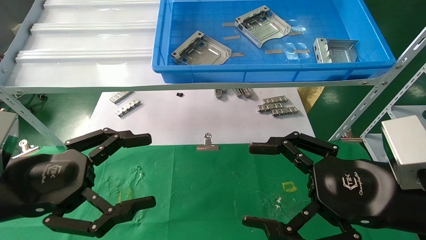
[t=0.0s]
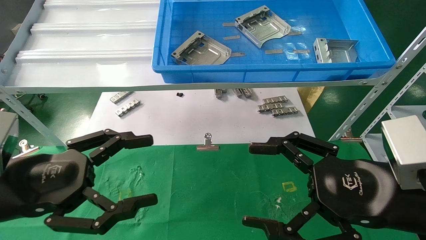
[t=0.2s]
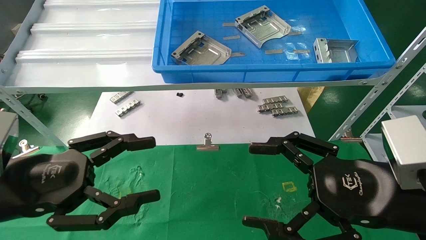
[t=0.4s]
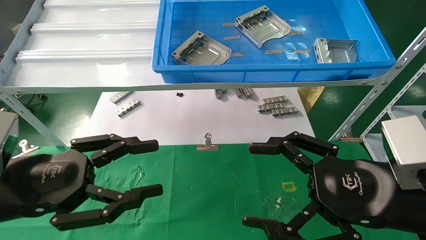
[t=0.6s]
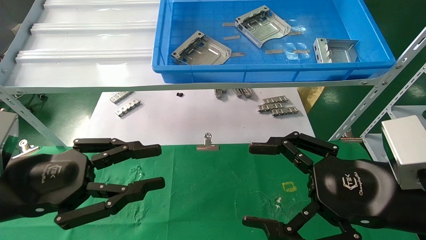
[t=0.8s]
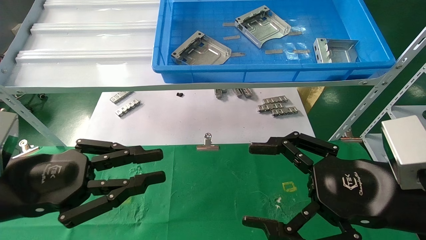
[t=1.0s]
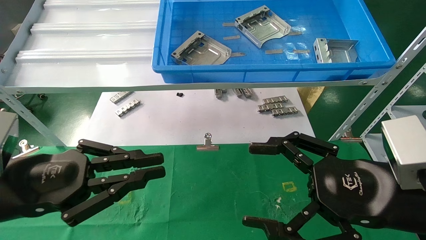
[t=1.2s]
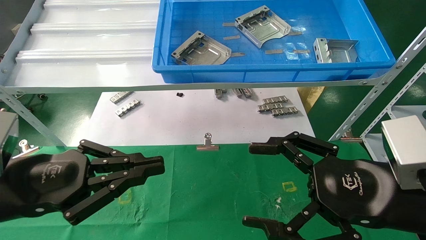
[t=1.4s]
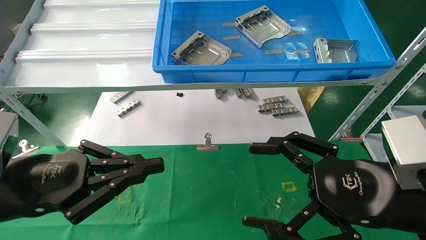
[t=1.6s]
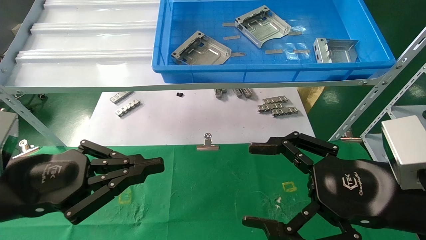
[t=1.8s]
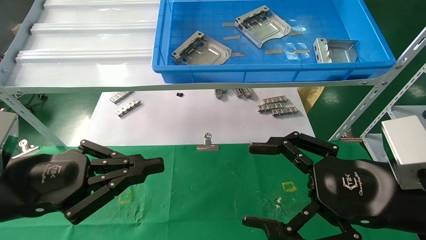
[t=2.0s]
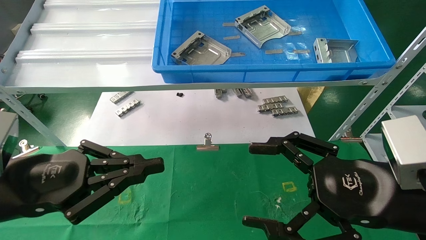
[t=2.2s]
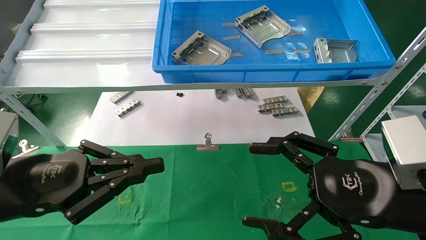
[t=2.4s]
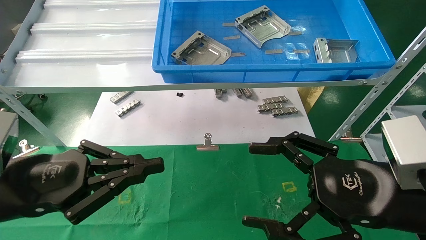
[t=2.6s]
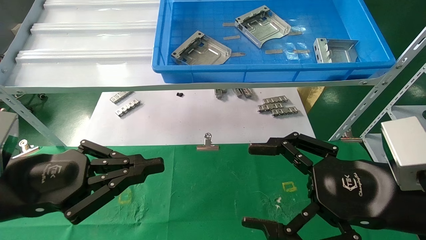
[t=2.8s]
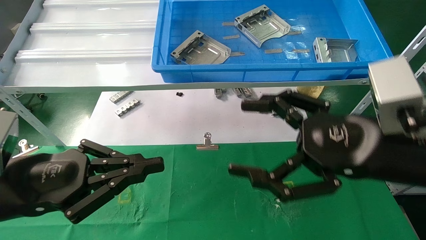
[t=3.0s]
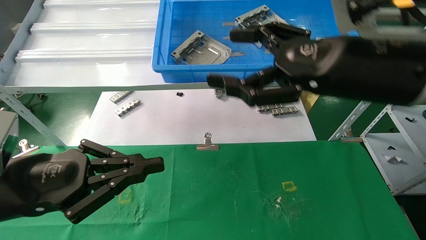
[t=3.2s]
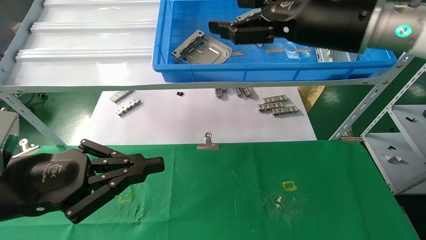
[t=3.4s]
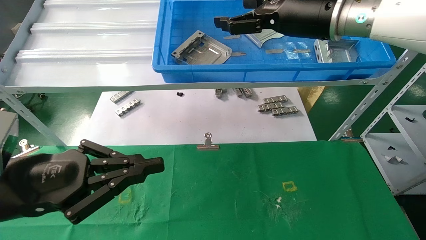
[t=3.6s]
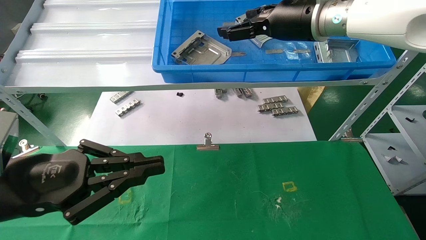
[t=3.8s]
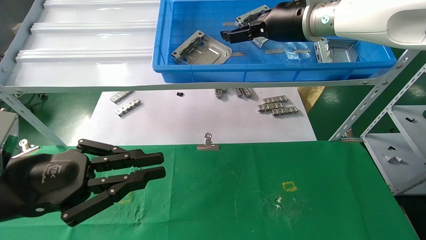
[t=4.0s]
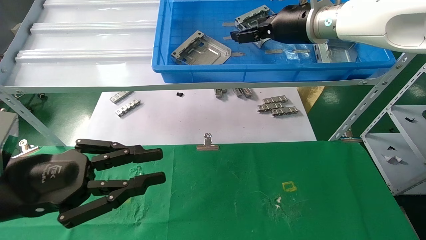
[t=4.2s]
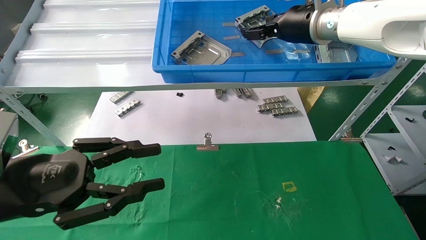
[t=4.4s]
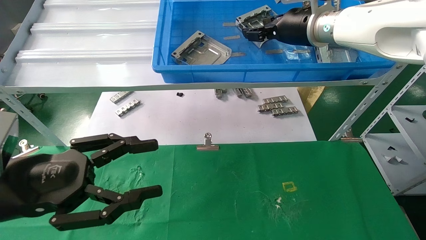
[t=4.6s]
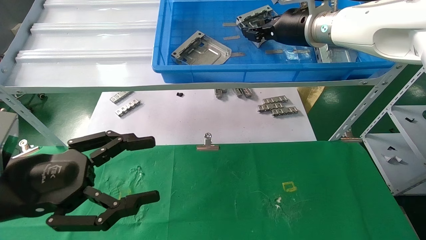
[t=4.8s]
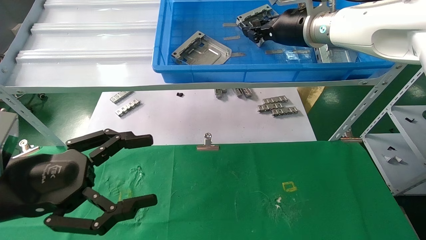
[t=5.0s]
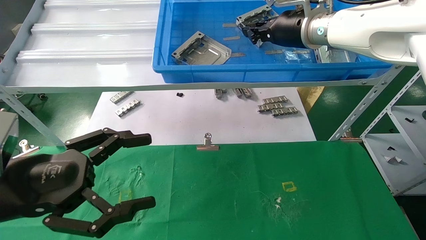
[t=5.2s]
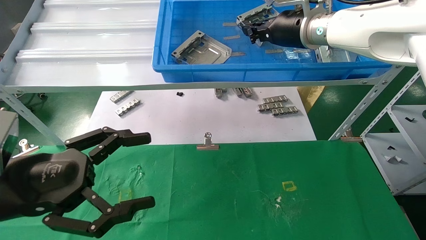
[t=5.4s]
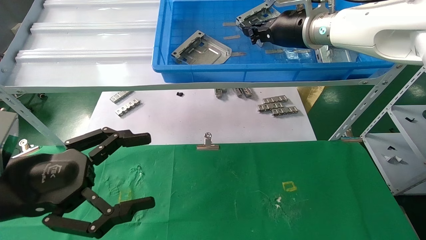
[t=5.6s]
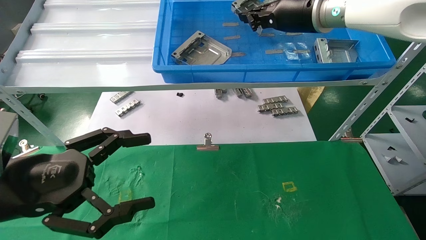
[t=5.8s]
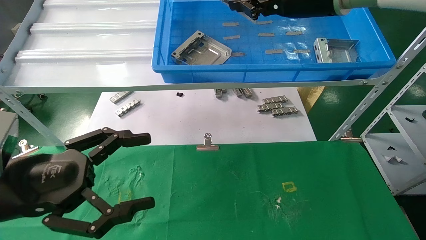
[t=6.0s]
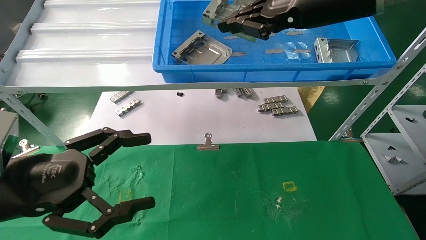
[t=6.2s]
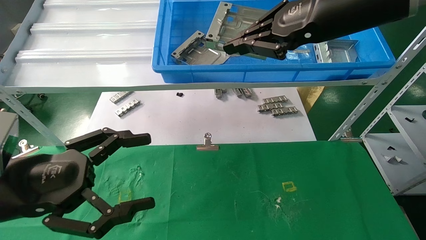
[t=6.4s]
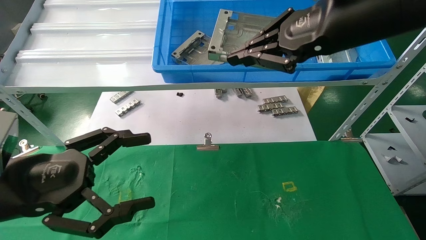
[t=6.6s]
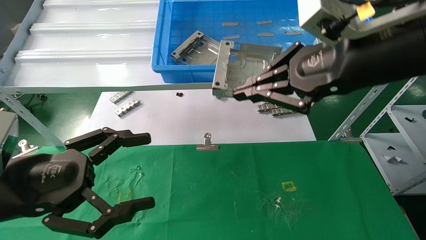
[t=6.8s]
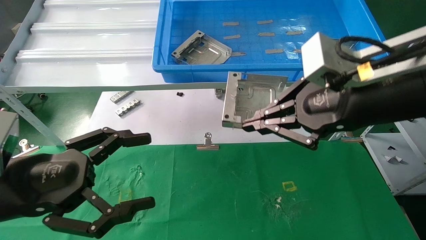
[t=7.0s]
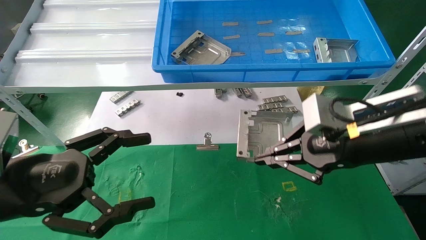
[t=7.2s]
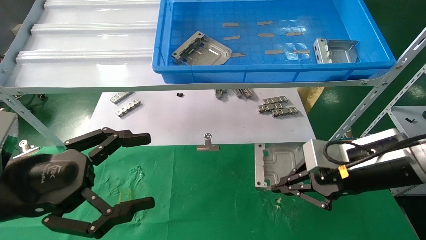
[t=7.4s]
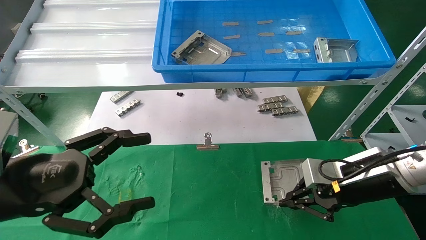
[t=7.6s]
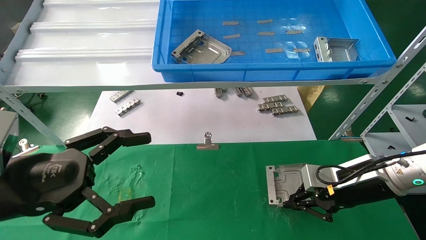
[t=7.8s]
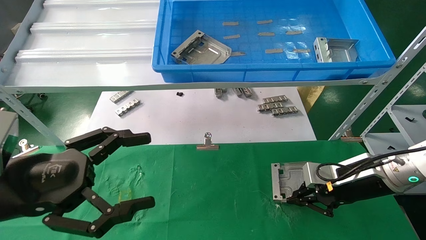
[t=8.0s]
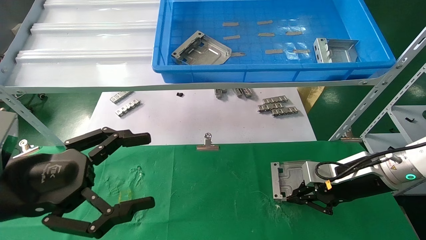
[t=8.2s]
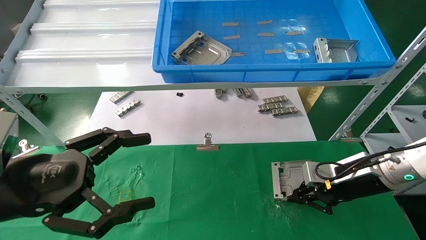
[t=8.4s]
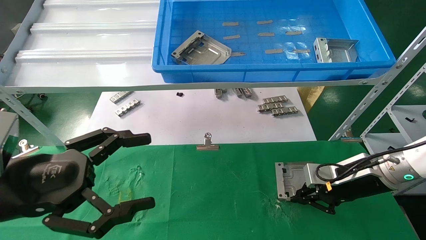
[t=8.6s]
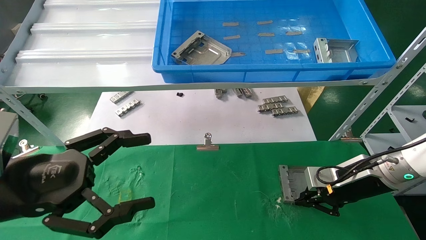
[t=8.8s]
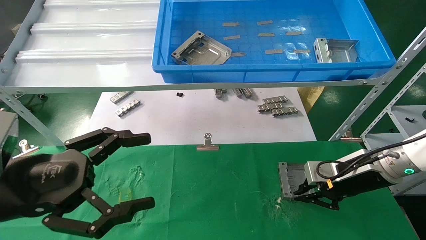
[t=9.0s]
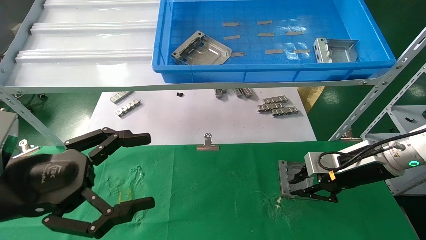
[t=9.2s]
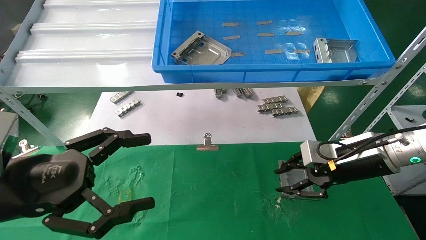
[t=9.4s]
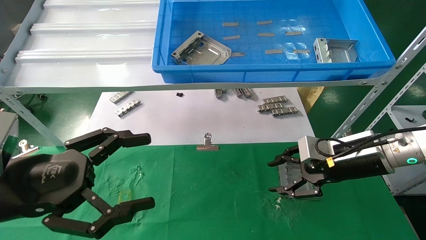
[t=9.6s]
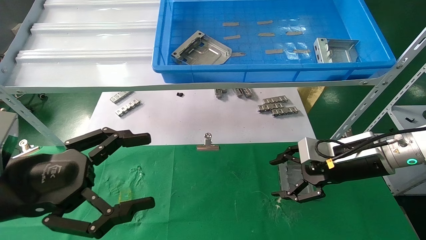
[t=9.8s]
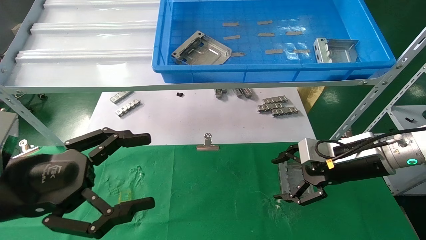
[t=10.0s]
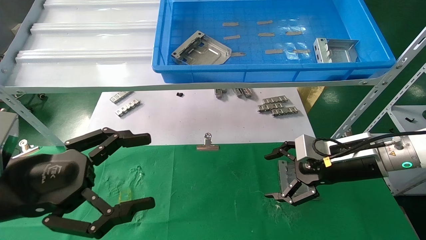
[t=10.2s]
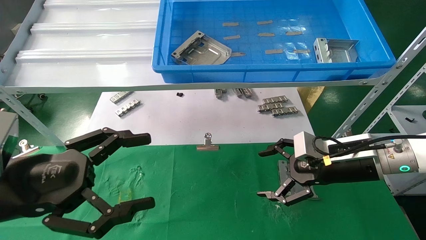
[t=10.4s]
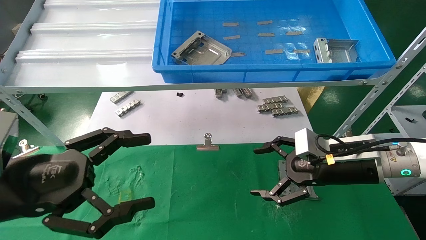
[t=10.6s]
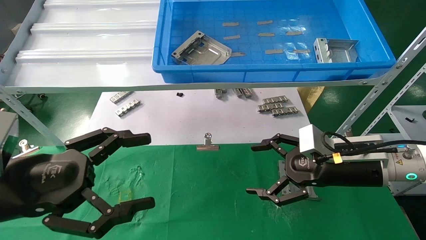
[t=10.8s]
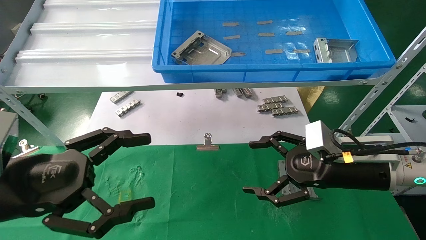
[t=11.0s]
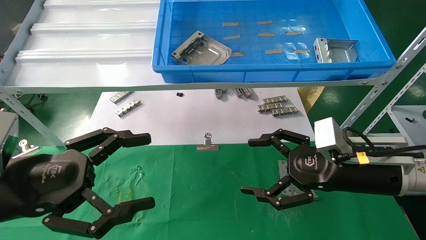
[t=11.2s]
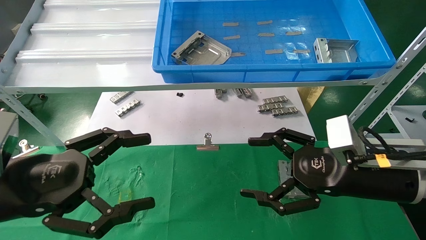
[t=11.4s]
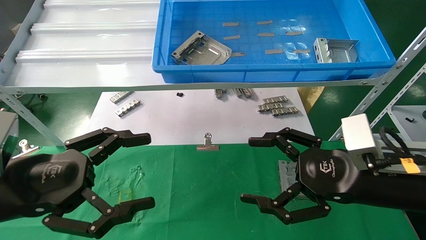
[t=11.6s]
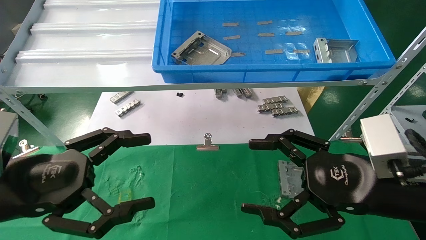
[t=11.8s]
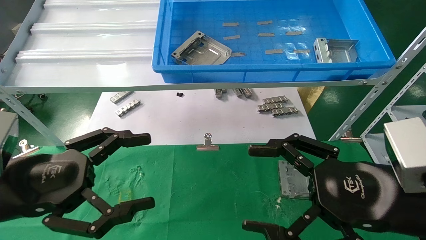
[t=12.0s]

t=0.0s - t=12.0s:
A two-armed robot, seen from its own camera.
Task of the whole recording: use the mechanical arm to pick up the parts and place them on the table.
Step, t=3.2s - t=5.4s: Pick up the hard drive bracket from the feeding area.
Step, t=5.6s - t=9.0s: Place the hard drive bracket into the box.
t=0.0s - t=1.6s: The left gripper closes up.
t=1.6s - t=3.0s: The right gripper goes some 5 cm upward.
t=3.0s - t=4.4s: The right gripper travels forward and upward by some 25 cm.
t=4.4s - t=6.0s: The right gripper shifts roughly 10 cm backward, and closes, while the left gripper opens.
t=6.0s - t=7.6s: The right gripper shifts about 30 cm downward and to the right.
t=7.6s - t=9.0s: The right gripper heads forward, covering some 5 cm.
t=9.0s - t=10.4s: The right gripper ends up about 5 cm from where it was, and opens its fingers.
t=10.4s - t=12.0s: The right gripper moves backward, roughly 15 cm.
